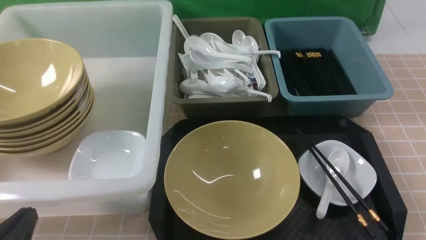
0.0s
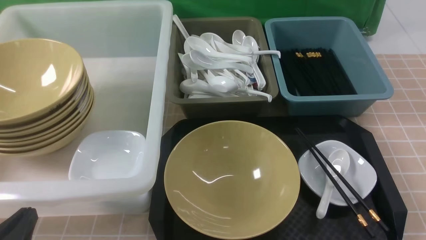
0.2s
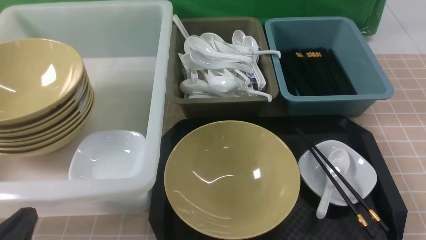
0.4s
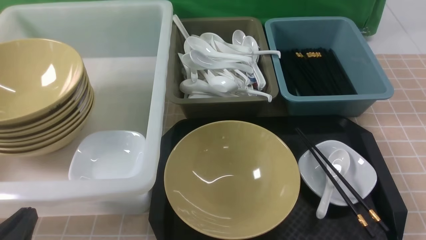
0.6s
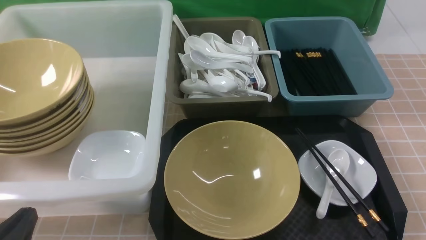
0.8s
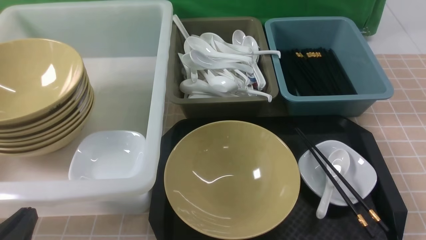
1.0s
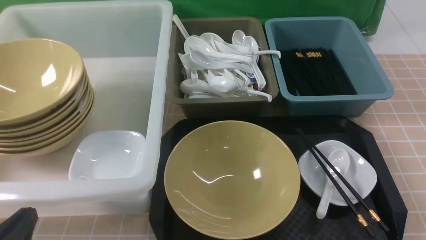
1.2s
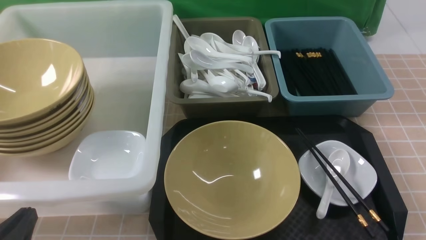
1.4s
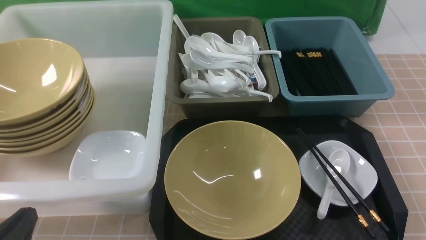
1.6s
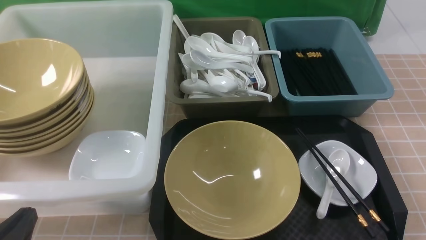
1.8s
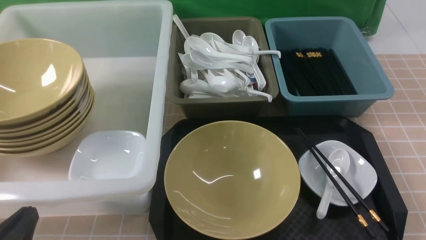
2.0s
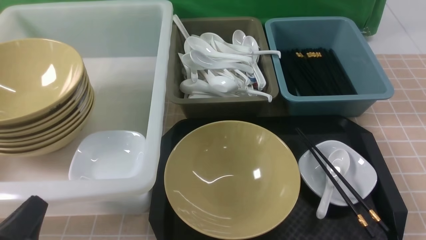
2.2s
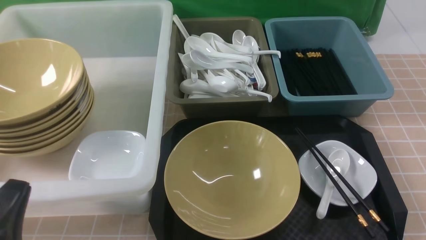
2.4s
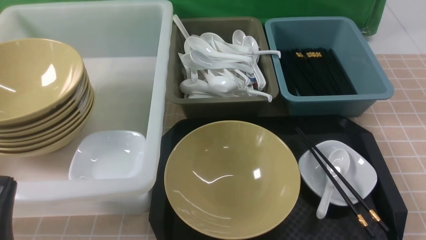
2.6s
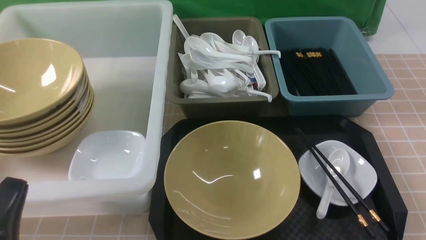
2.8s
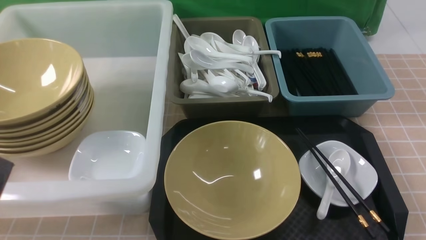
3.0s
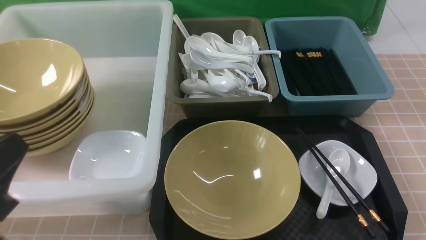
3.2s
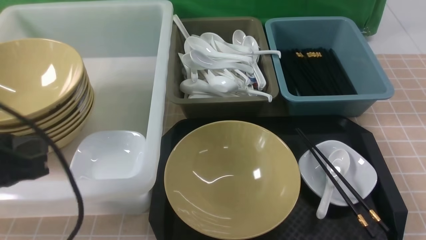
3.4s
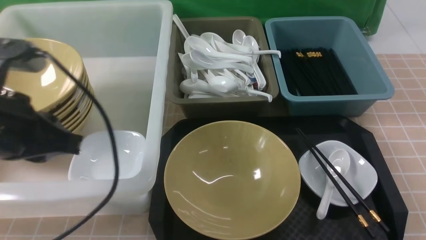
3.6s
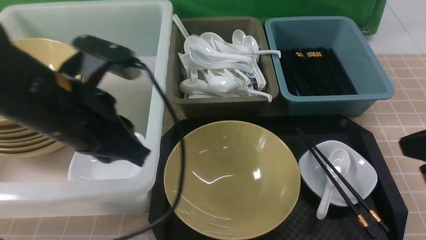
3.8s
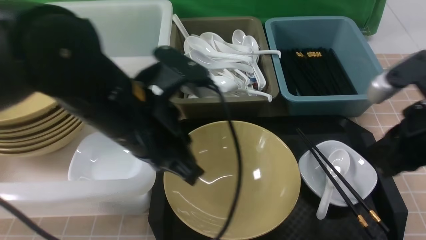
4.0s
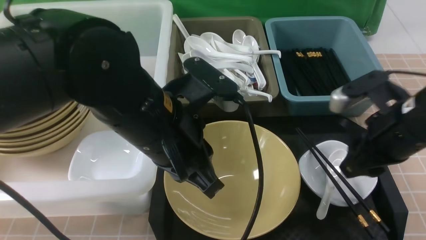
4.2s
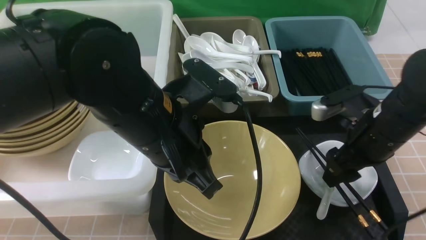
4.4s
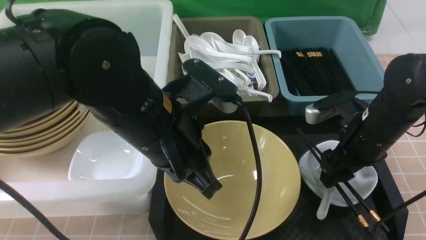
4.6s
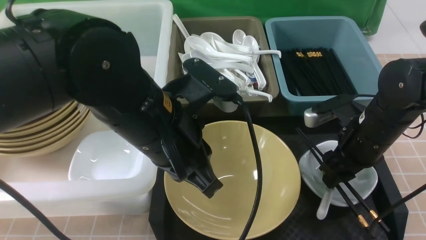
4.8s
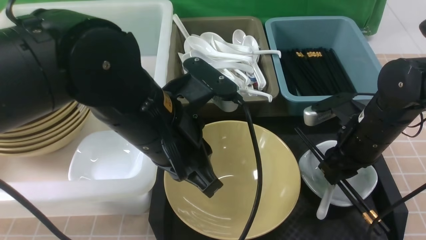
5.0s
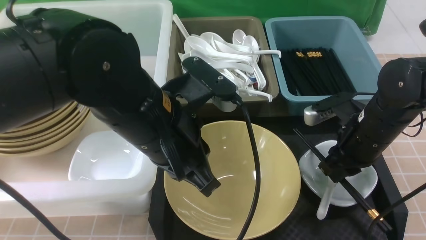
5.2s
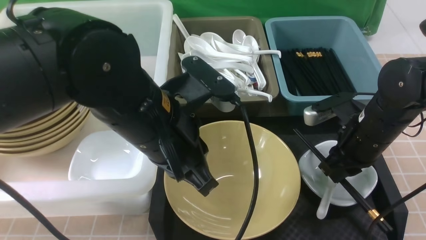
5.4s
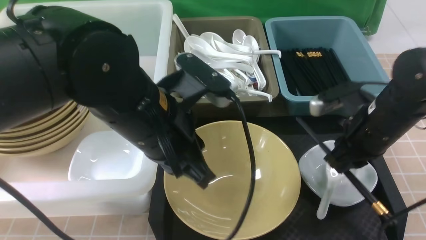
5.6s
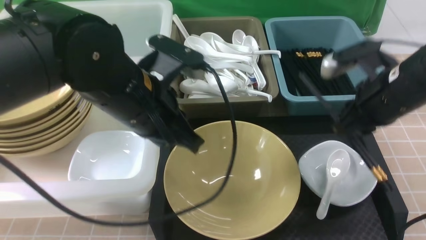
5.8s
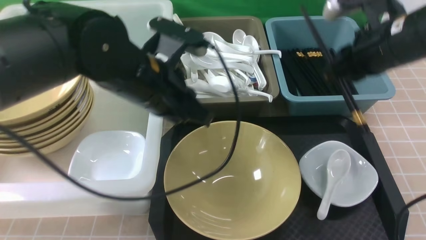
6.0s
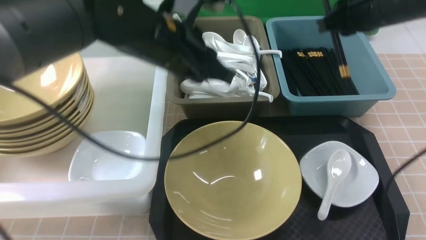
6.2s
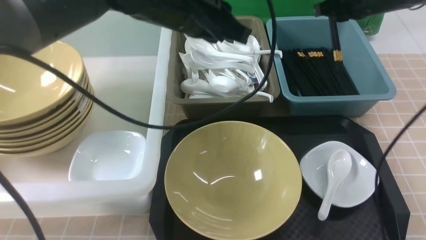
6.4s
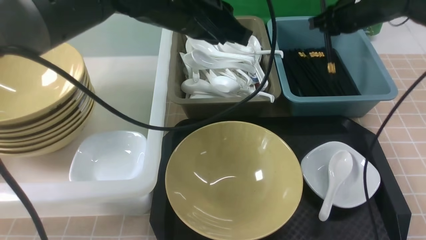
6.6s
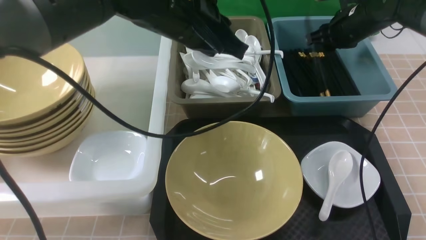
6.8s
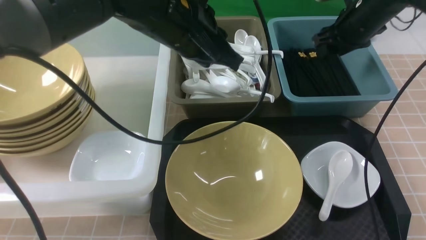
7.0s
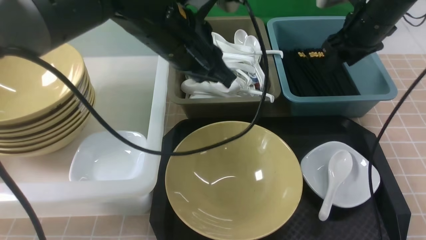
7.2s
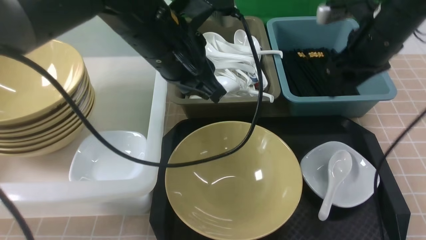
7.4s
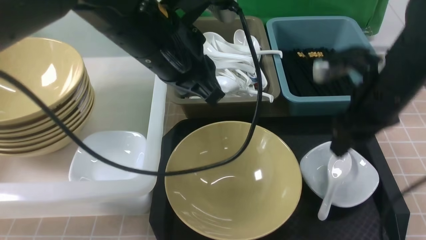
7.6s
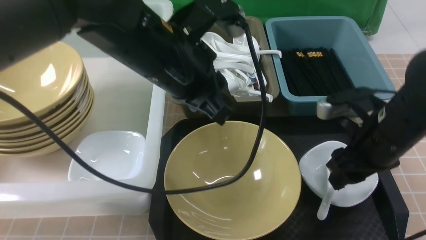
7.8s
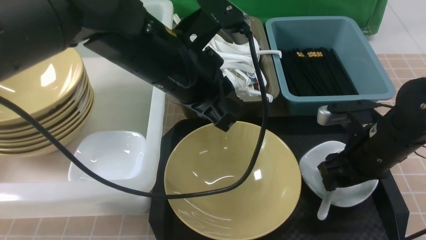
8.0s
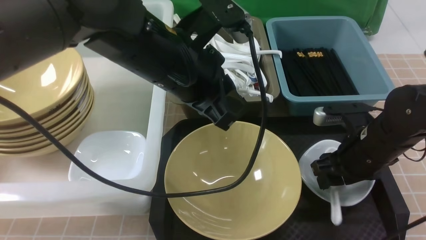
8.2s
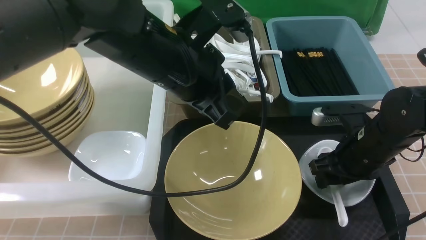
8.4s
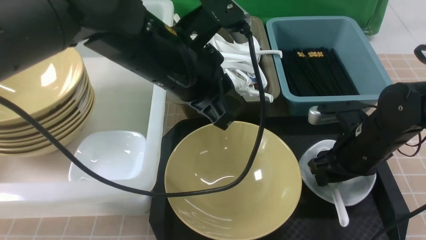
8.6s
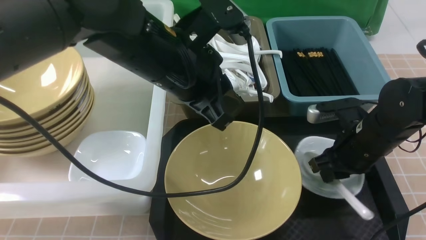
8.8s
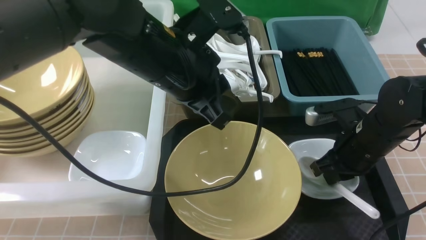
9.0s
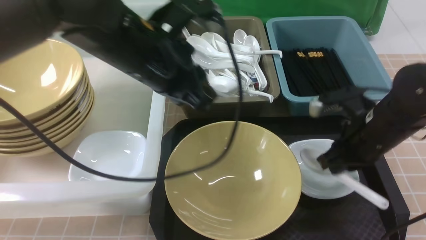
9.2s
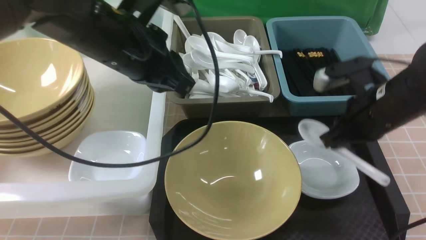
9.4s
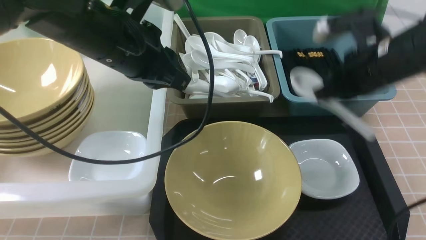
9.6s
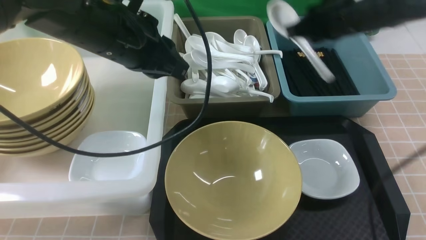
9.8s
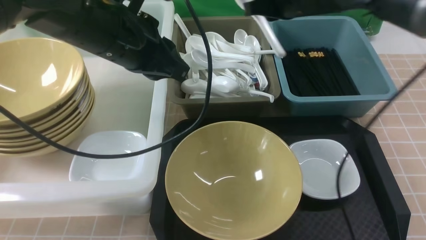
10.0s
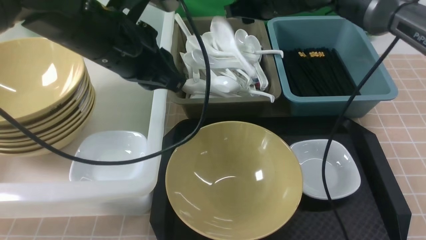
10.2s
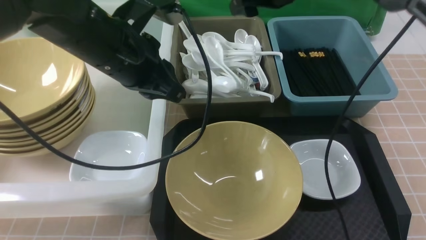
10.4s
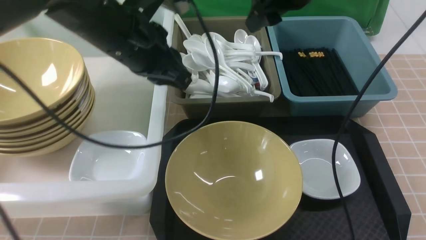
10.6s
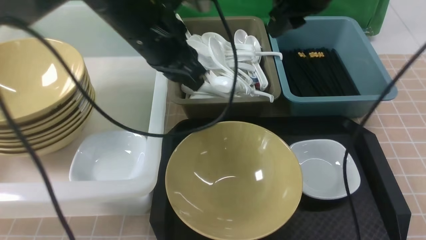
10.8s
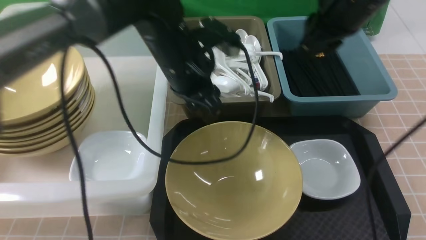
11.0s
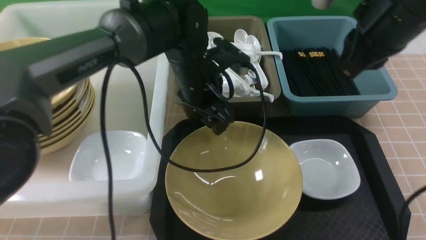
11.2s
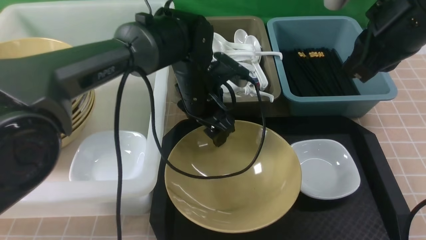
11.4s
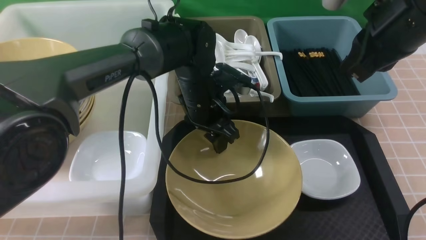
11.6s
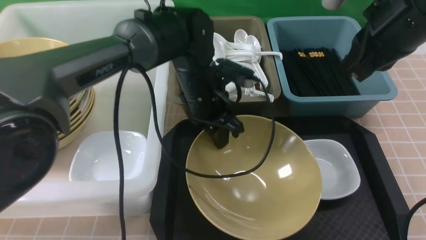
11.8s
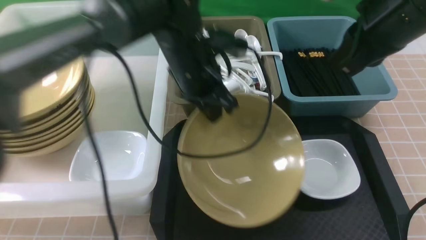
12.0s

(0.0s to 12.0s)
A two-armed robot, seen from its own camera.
Task of the whole recording: on brown table put chopsticks spoon bowls plates into blue grey white boxes.
Step, 0.0s - 5.6s: use the right arm to grab the chopsticks.
Step, 5.8s - 6.8s: use the right arm to put the chopsticks into the small storage box on the right.
Step, 7.0s - 9.2s: use the right arm to grab the soup spoon in the middle.
Step, 9.4s - 10.2s: use the right arm to put the soup spoon into the small storage box in the middle.
Step, 10.4s - 11.8s: use the left arm to grab the yellow noodle bowl on the left.
0.0s - 1.6s: Both grippers stay put.
1.6s - 3.0s: The left gripper travels upward by roughly 10 cm.
3.0s - 4.4s: The left gripper shifts roughly 25 cm to the right and forward, while the right gripper shifts some 25 cm forward, and opens up.
4.4s - 6.0s: The left gripper is displaced forward by some 10 cm; the right gripper is displaced upward and forward by approximately 10 cm, and closes its fingers.
6.0s - 7.6s: The right gripper shifts about 5 cm downward, goes forward and returns, approximately 15 cm each way, and opens.
7.6s - 9.0s: The right gripper goes roughly 5 cm downward, and closes its fingers.
9.0s - 10.4s: The left gripper goes approximately 5 cm to the left; the right gripper goes approximately 25 cm forward, upward and to the left, and opens.
10.4s - 12.0s: The right gripper is displaced backward by about 15 cm, and closes its fingers, while the left gripper shifts approximately 5 cm to the right, reaches roughly 10 cm downward, then returns, and opens, then closes again.

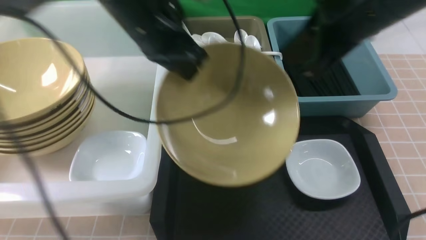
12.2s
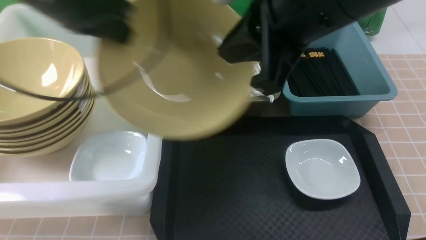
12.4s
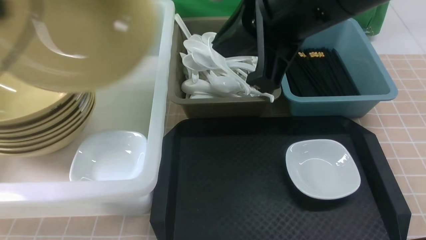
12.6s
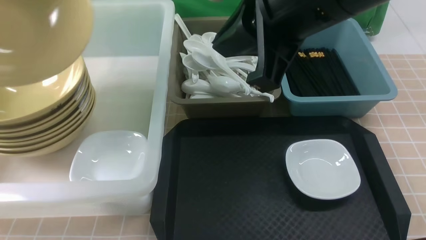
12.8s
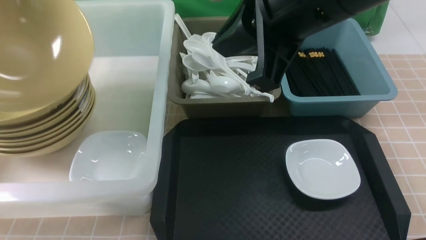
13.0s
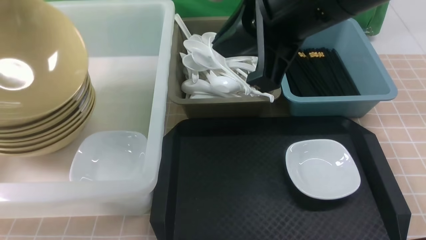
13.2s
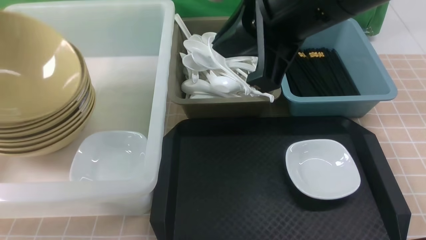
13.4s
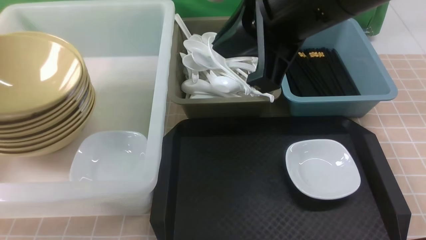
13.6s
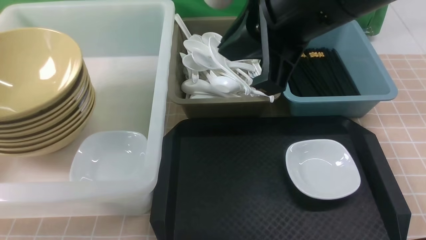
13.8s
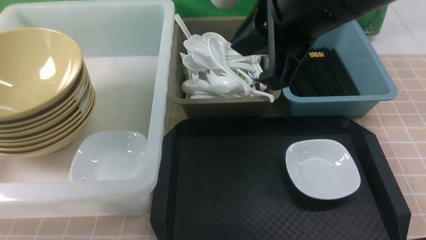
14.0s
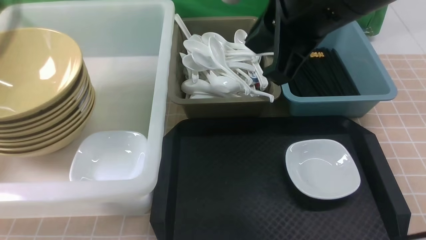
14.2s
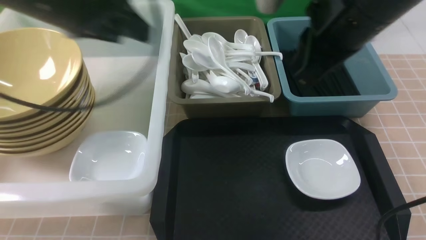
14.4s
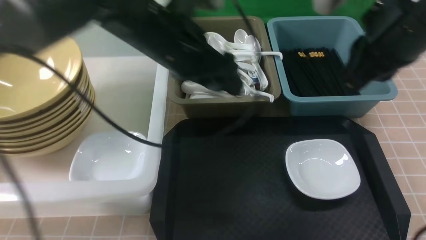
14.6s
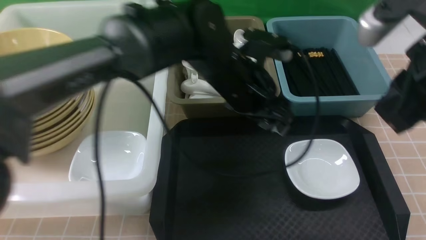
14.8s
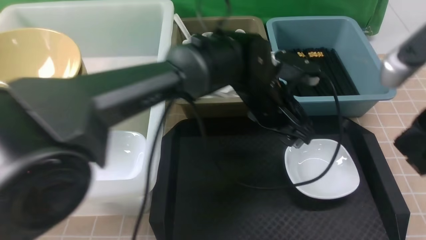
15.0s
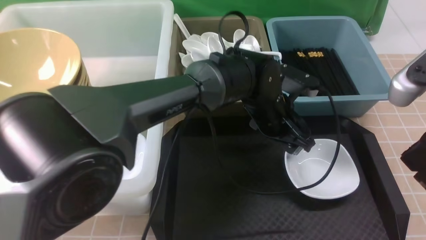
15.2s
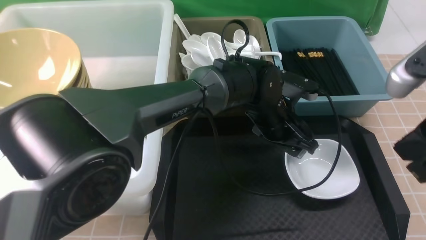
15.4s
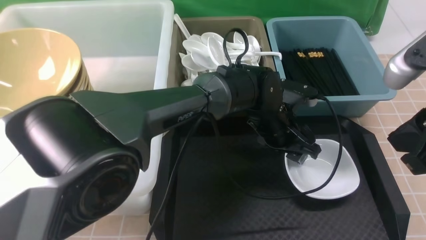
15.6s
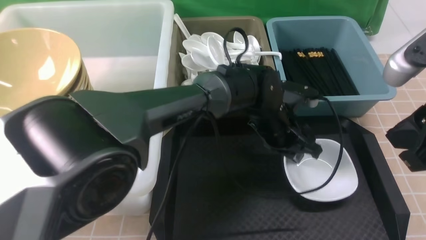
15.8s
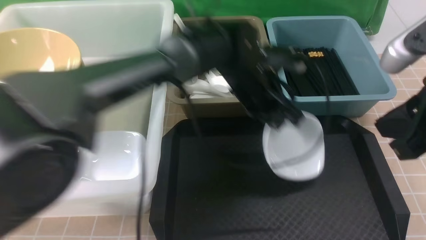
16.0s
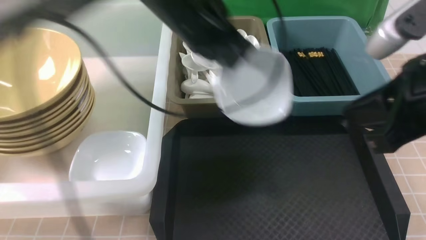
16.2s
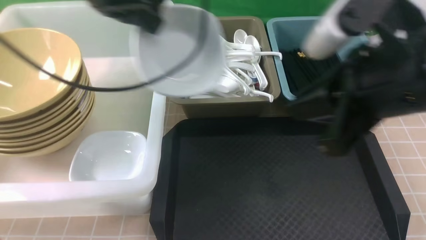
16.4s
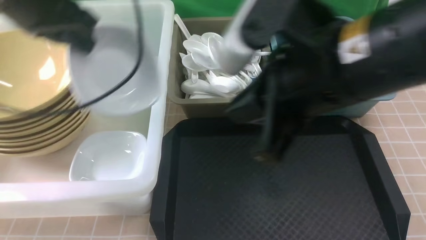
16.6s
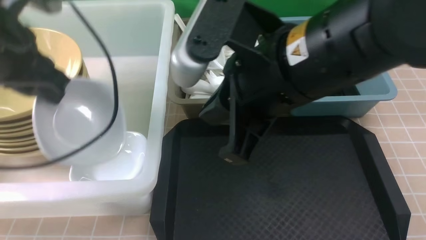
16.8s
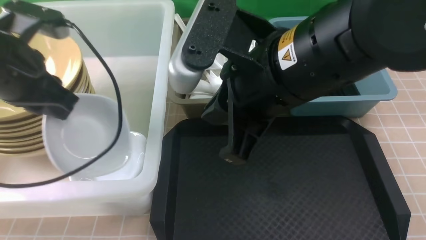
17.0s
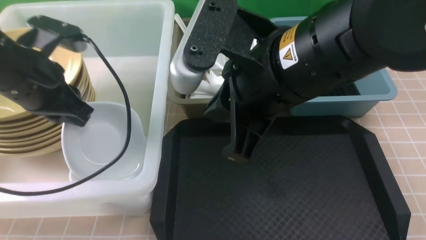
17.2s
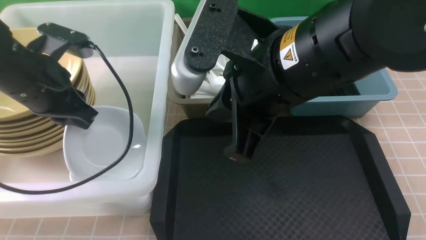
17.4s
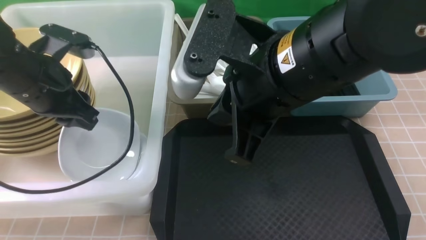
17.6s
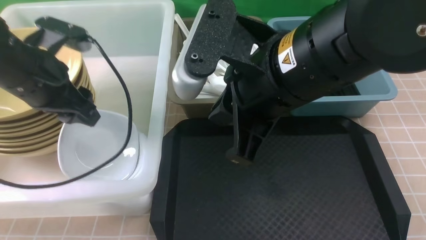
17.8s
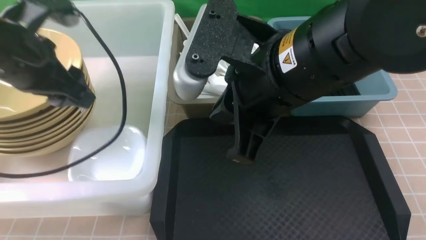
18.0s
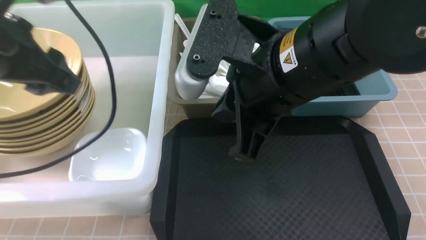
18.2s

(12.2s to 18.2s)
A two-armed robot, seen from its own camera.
Task of the whole recording: on brown table put chopsticks spoon bowls plates into blue grey white boxes.
Step, 12.2s - 13.6s: use the left arm to put the noodle bowl into the large storage box on the left.
Step, 13.8s - 15.8s: use the left arm to grab the plate.
Step, 16.0s - 17.8s: use the left arm to put the plate into the large storage box on the left.
12.2s - 13.8s: The right gripper changes place by about 5 cm. Meanwhile the left gripper goes roughly 30 cm to the left, and opens up.
13.8s - 15.2s: The left gripper goes about 50 cm to the right. Meanwhile the right gripper goes approximately 20 cm to the right, downward and backward.
15.2s - 16.6s: The left gripper moves to the left and upward, approximately 35 cm, and closes, while the right gripper shifts some 15 cm to the left.
16.6s - 18.2s: The left gripper reaches some 10 cm downward, then returns, and opens up.
